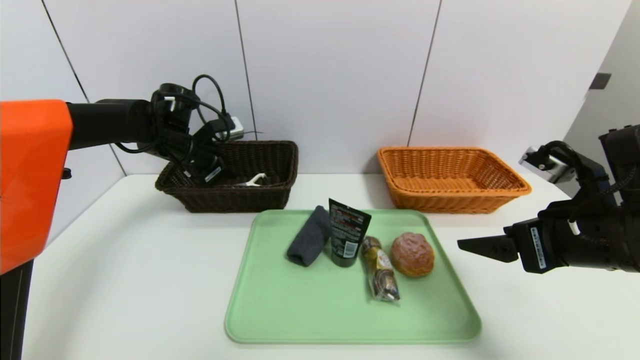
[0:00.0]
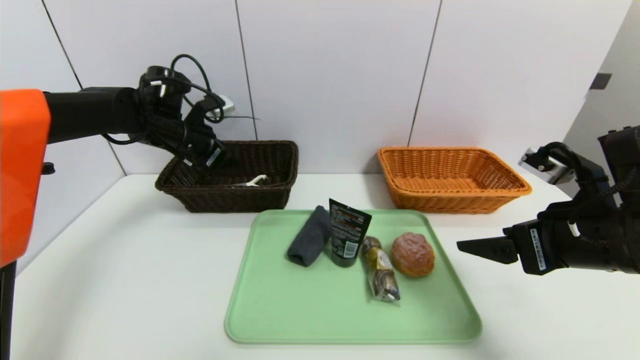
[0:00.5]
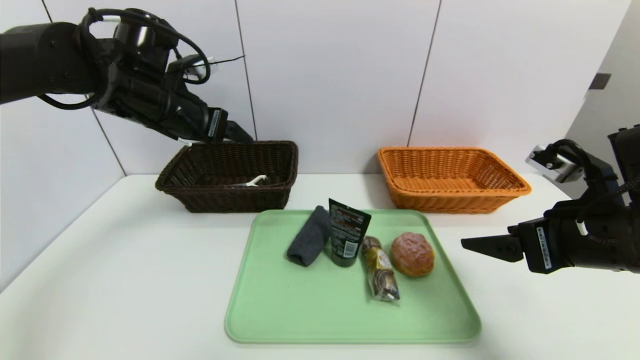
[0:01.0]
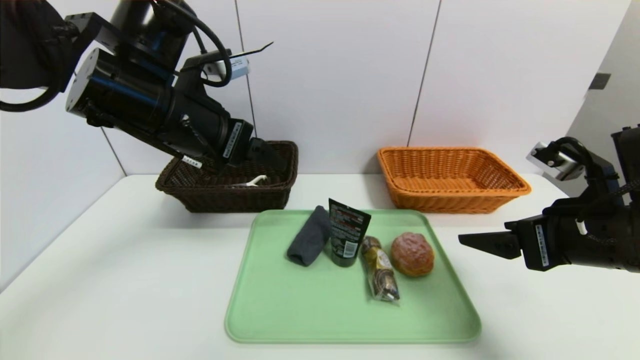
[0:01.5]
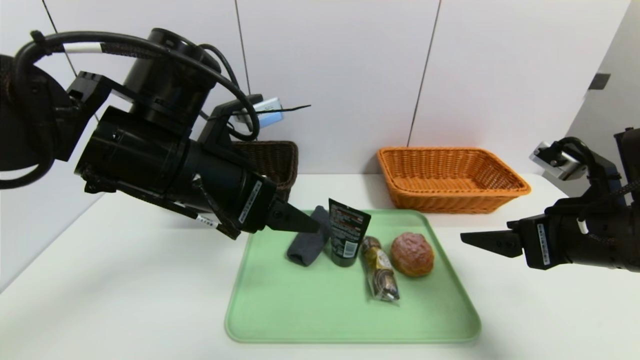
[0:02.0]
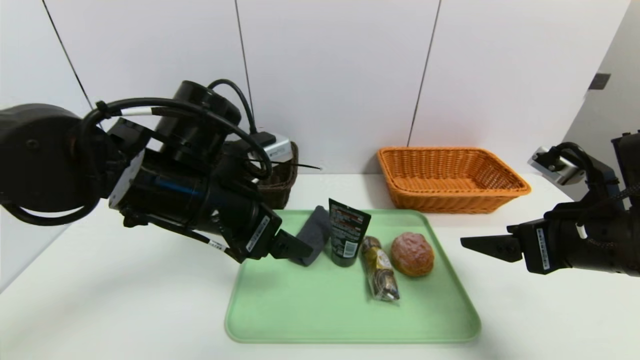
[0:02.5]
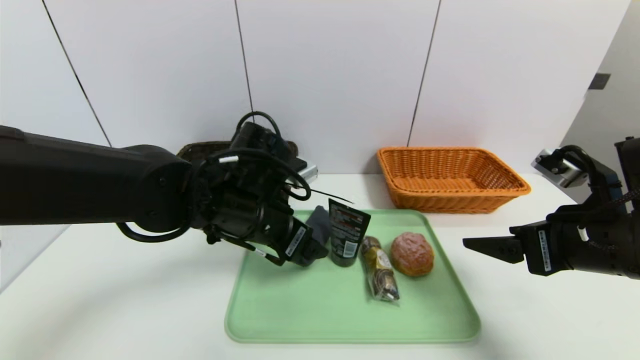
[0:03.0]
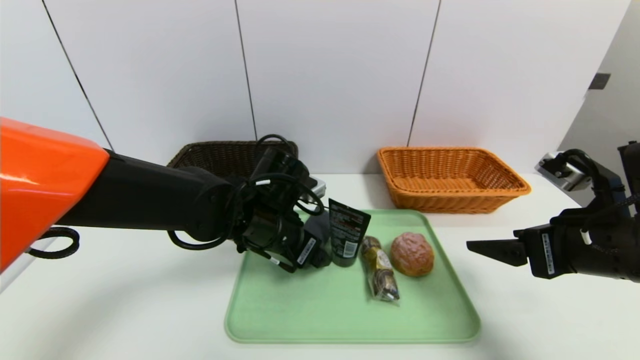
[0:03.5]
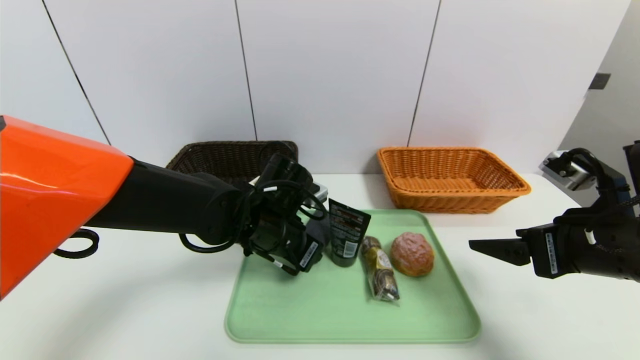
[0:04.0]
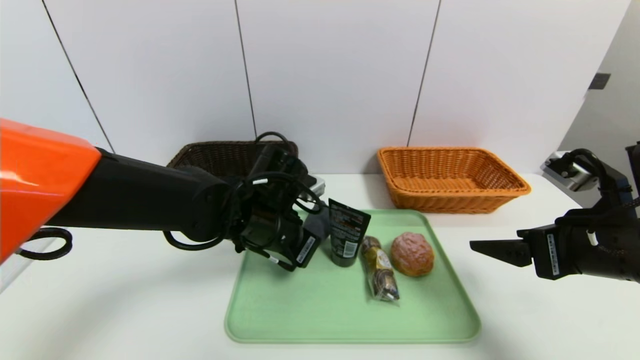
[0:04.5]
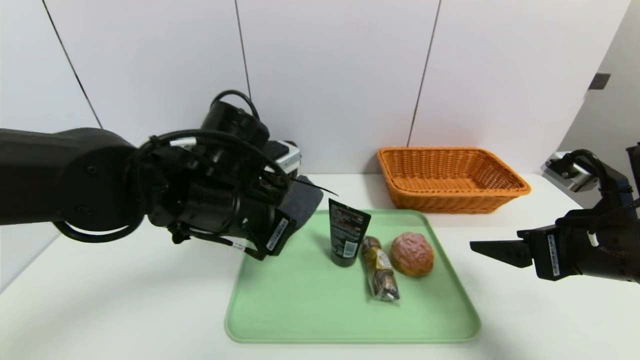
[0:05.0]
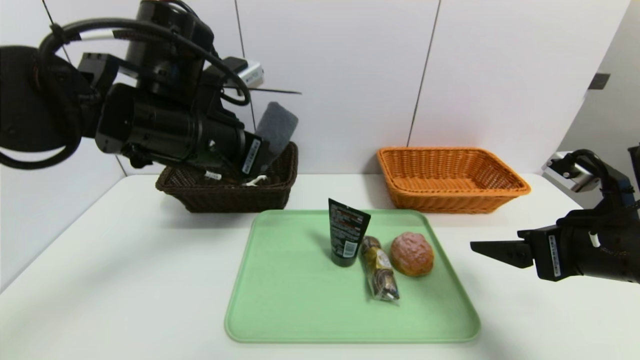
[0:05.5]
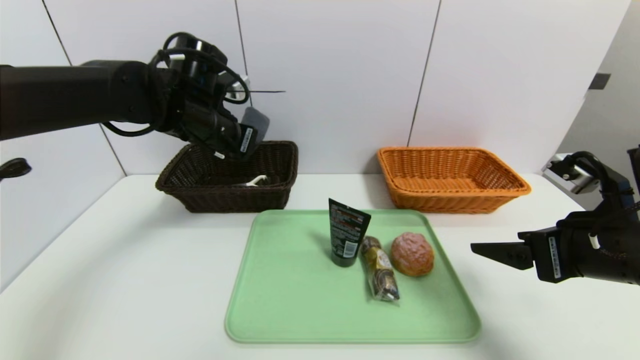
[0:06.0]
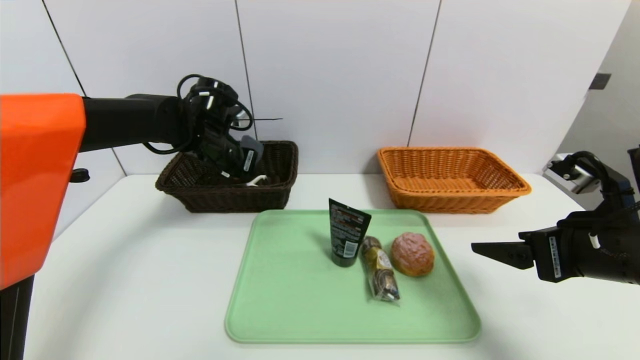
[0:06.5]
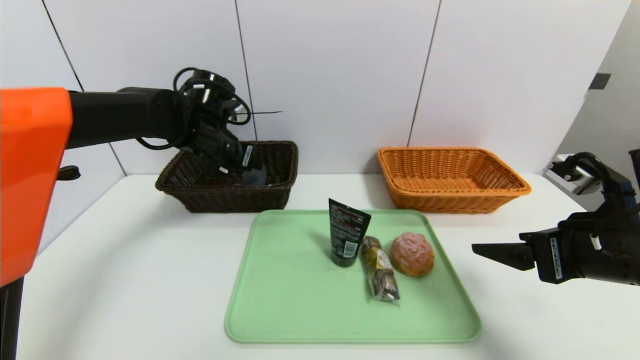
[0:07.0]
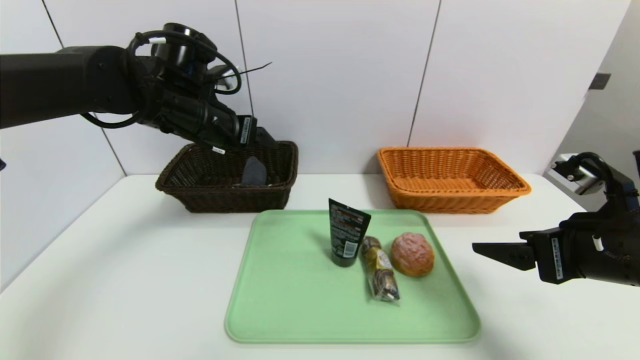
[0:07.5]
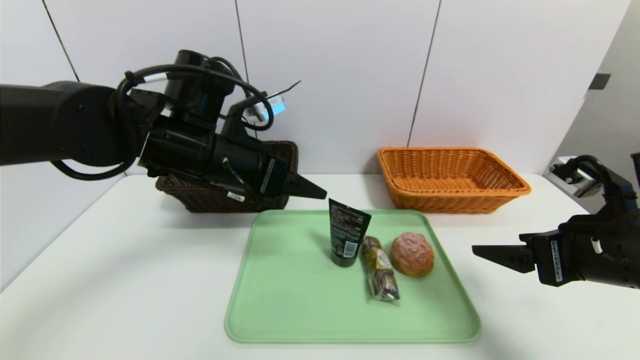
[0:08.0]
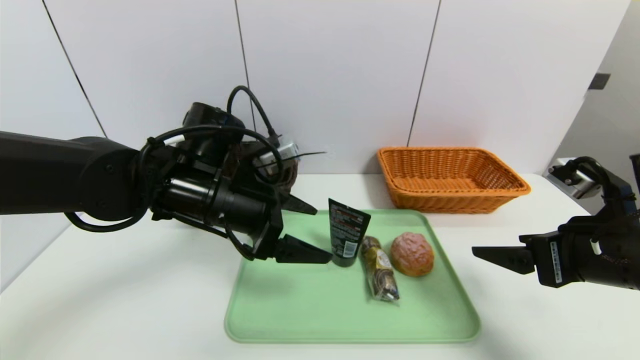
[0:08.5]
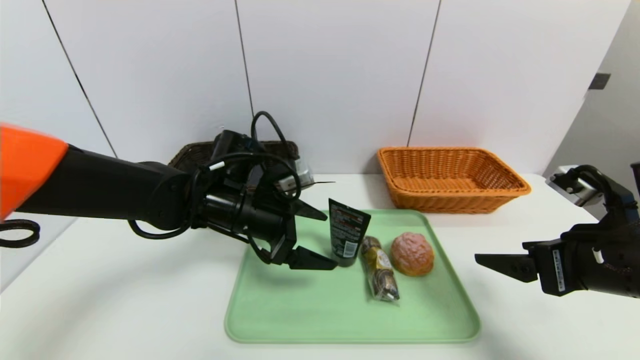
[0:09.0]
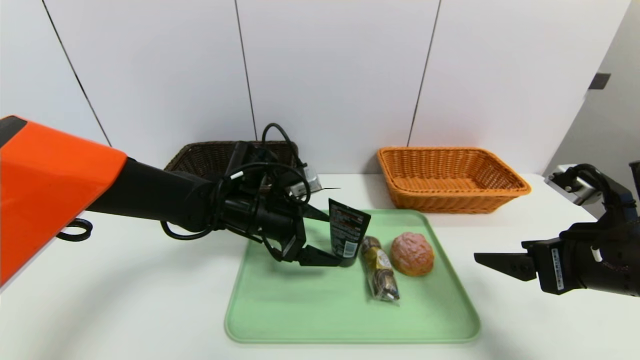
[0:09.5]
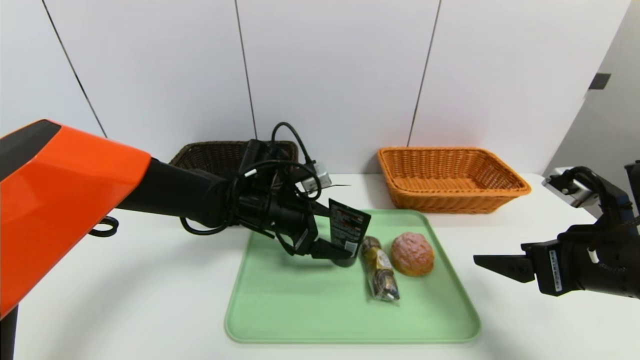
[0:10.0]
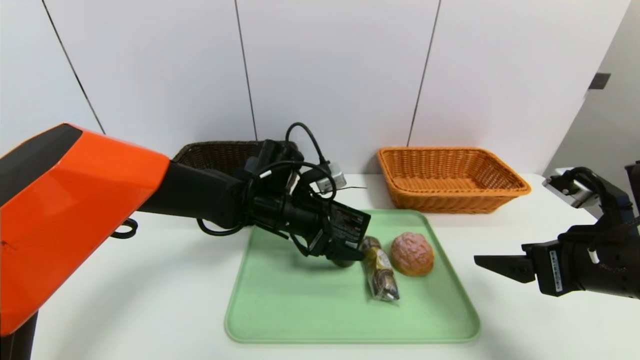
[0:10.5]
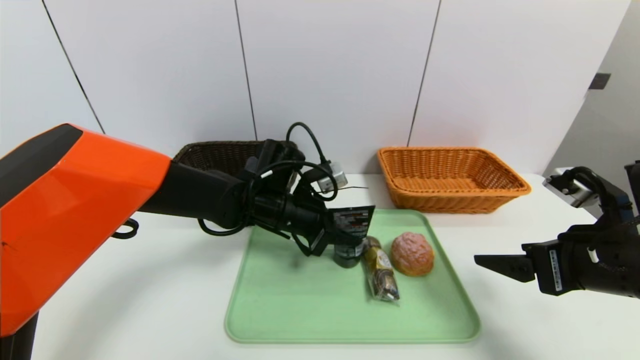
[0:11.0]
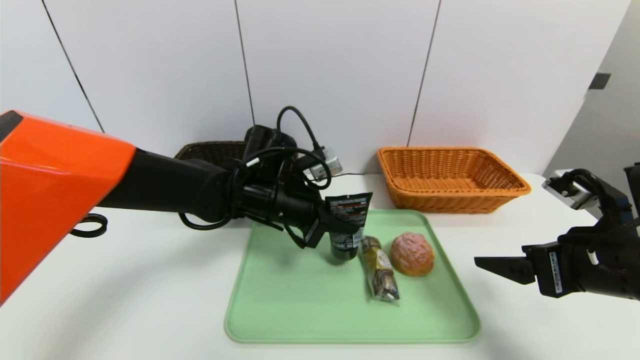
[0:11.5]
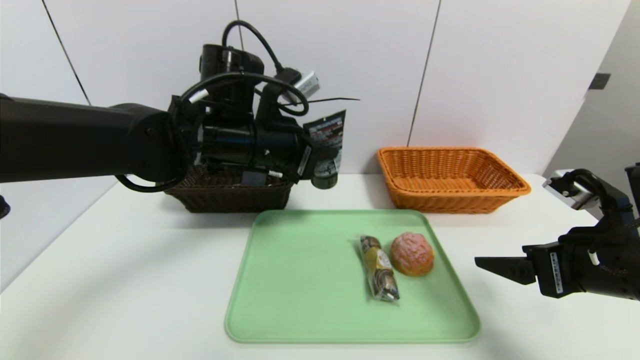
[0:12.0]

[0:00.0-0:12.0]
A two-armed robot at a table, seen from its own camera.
Task of the whole recording: place the food in the right basket with the right gripper, and place the non food items in the left basket with the left gripper.
Step, 0:01.0 to 0:07.0: Grasp the grey towel and put it in the left basket.
0:00.0 to 0:02.0: The left gripper travels backward and to the right by approximately 25 cm, and opens its fingers.
0:02.0 to 0:04.0: The left gripper is displaced downward, forward and to the right by roughly 15 cm, and closes.
0:04.0 to 0:06.0: The left gripper shifts some 20 cm upward, to the left and forward.
0:06.0 to 0:08.0: The left gripper travels backward by roughly 10 cm, and opens.
0:08.0 to 0:10.0: The left gripper travels downward and forward by roughly 15 cm.
0:10.0 to 0:12.0: The left gripper goes approximately 15 cm upward, and closes up.

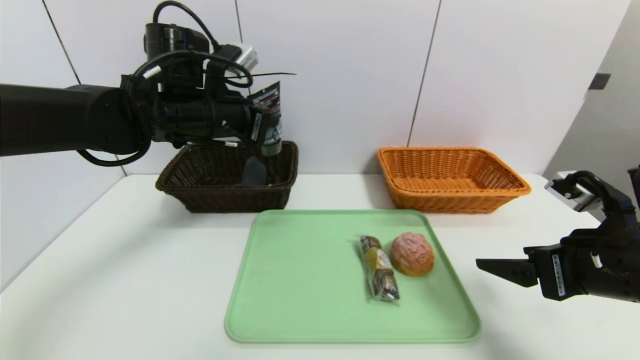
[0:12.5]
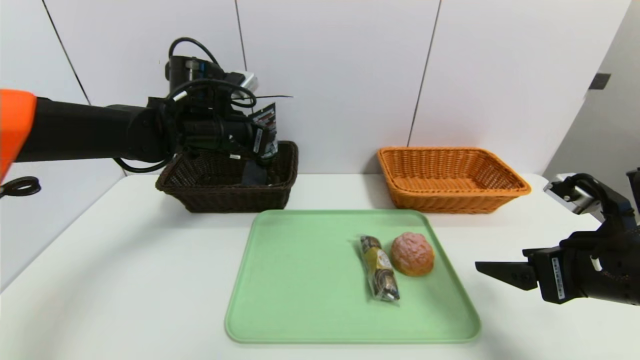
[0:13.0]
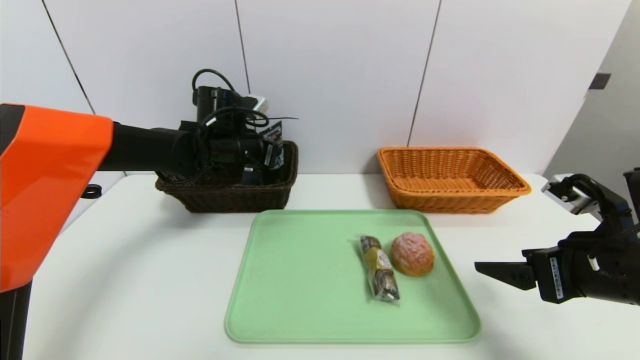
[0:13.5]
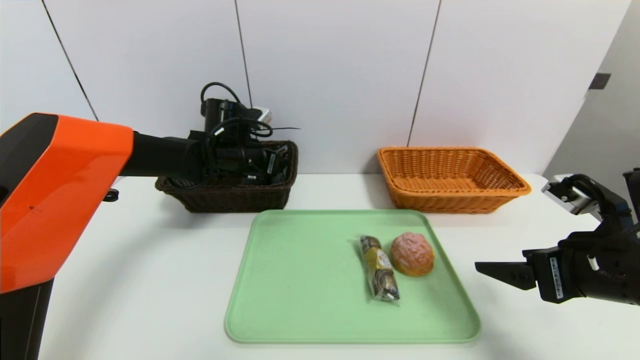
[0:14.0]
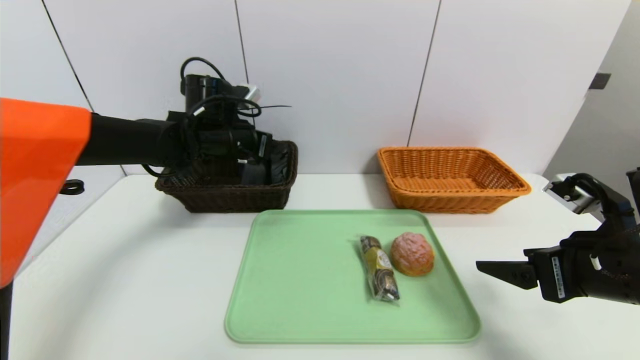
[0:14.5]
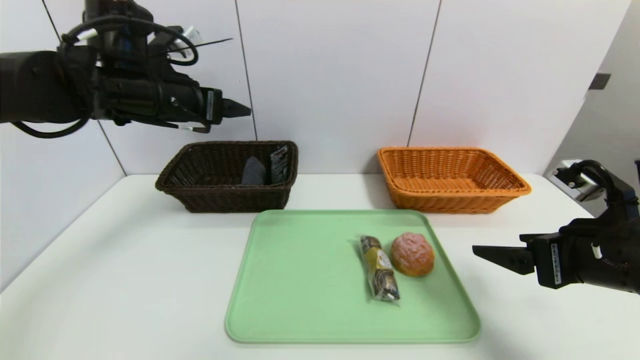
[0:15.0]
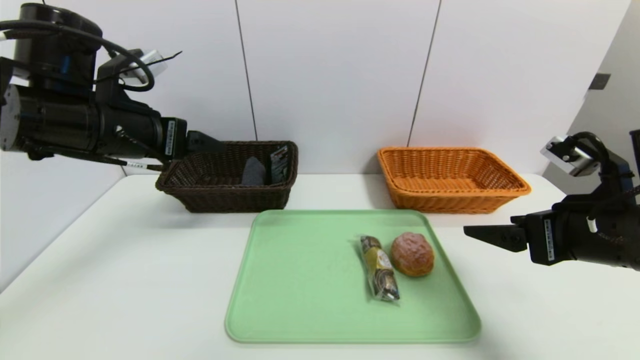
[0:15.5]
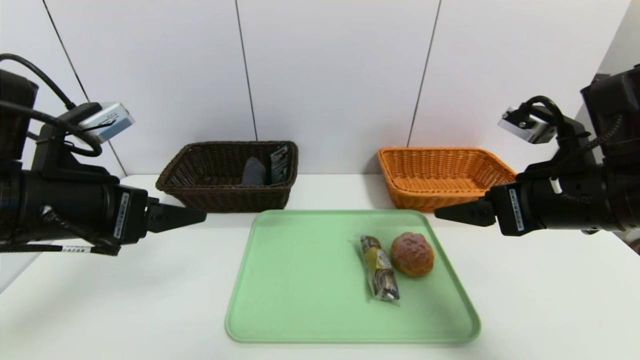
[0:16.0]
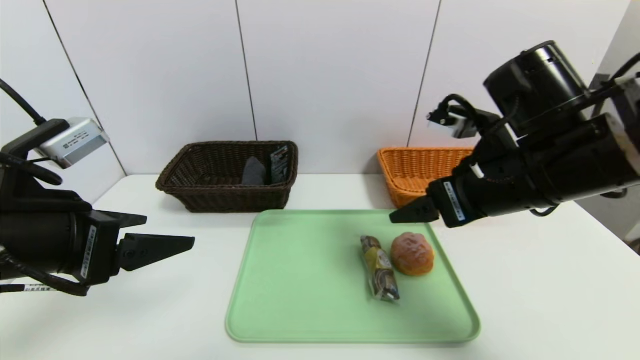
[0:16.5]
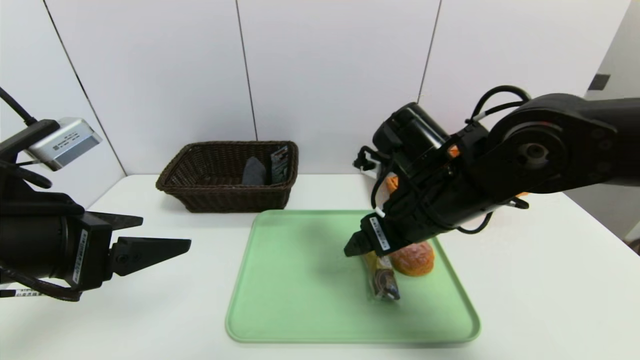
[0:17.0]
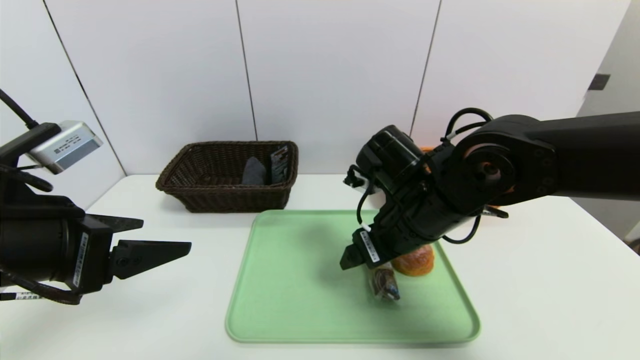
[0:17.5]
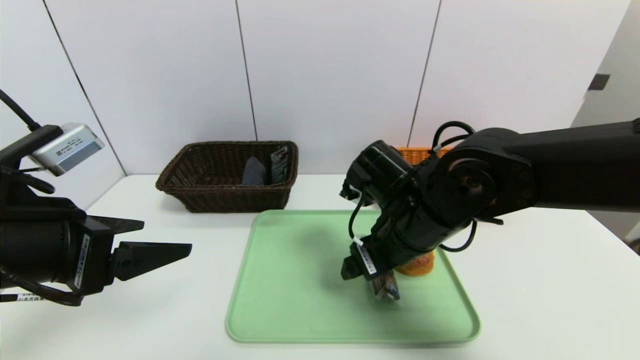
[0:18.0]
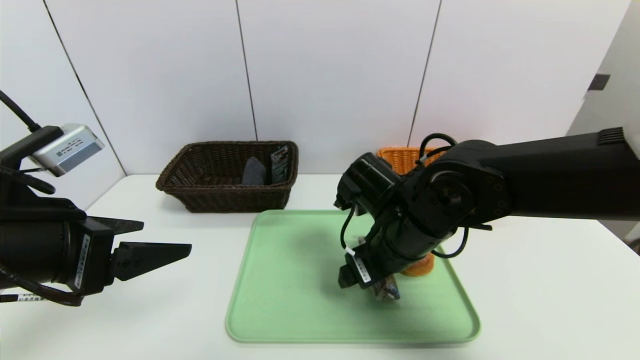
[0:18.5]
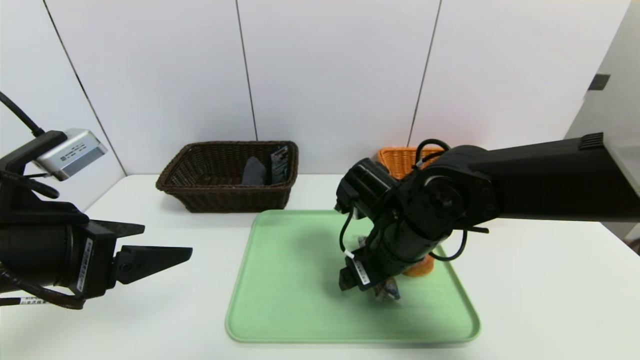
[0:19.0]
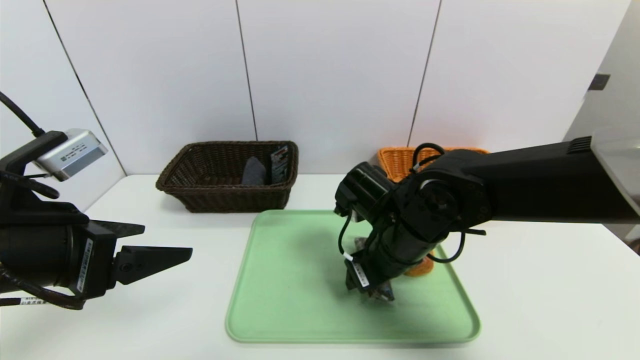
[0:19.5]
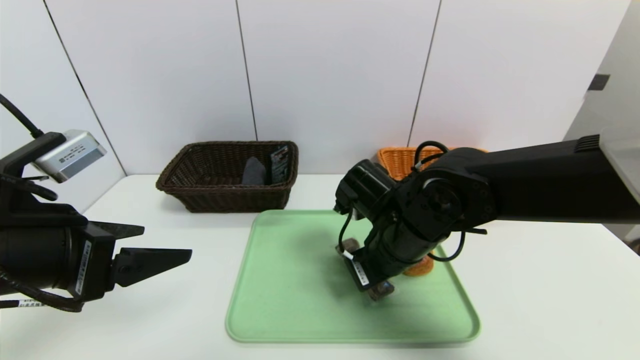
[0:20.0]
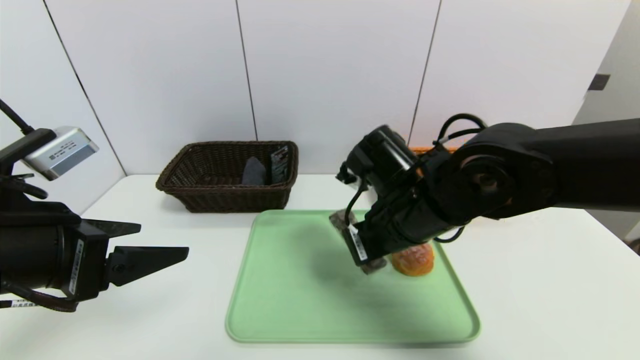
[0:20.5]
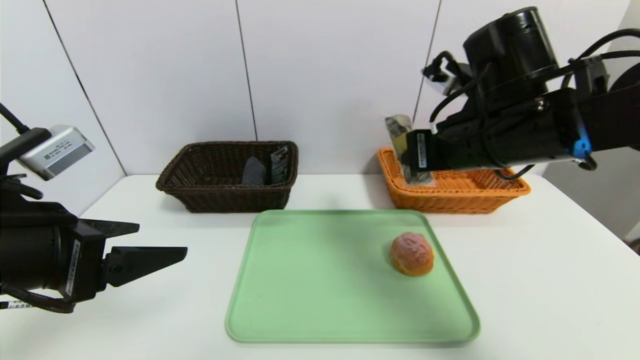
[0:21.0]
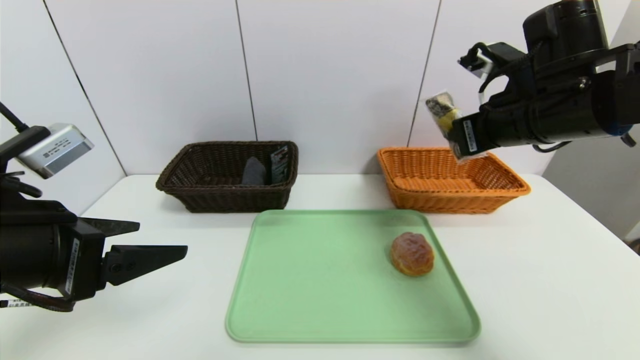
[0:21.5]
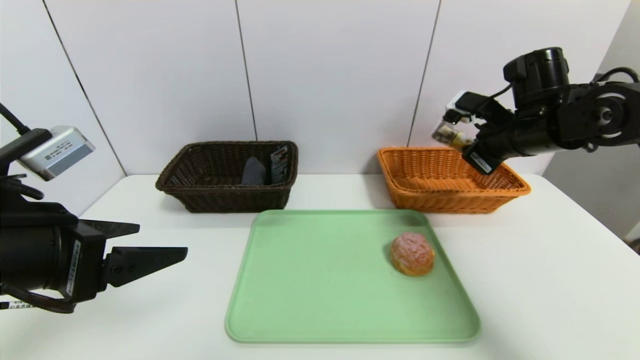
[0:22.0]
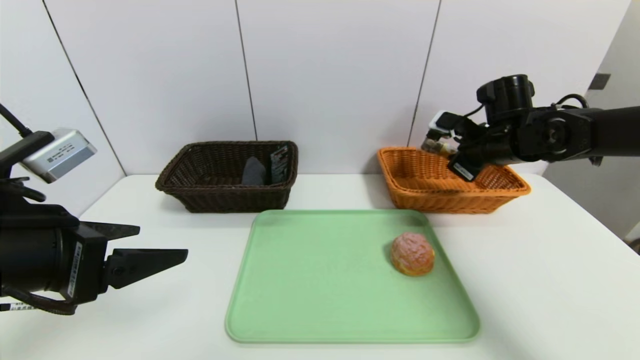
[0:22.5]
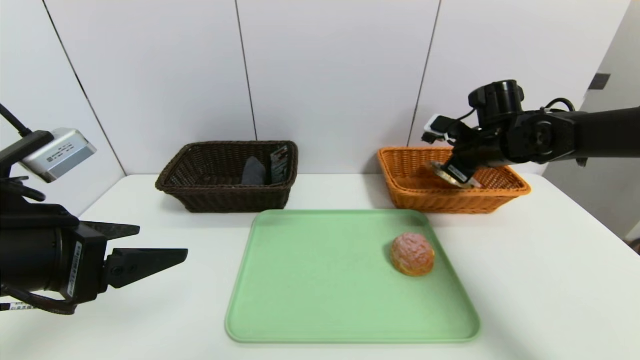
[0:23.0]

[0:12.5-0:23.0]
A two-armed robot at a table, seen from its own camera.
Task of the whole recording: place the food in the right basket with the right gripper, and place the non food items in the left basket with the left gripper.
Step, 0:12.5 to 0:14.5: Grasp the soft cleanser and put it in the left basket.
0:12.5 to 0:14.5: The left gripper heads forward and downward, covering some 10 cm, and opens its fingers.
0:14.5 to 0:16.5: The left gripper heads backward, covering approximately 25 cm; the right gripper is displaced to the left, upward and forward by some 15 cm.
0:16.5 to 0:19.0: The right gripper goes about 15 cm downward and to the left.
0:19.0 to 0:21.0: The right gripper shifts roughly 15 cm upward and to the right, and closes up.
0:21.0 to 0:23.0: The right gripper shifts some 20 cm forward, to the right and downward, and opens up.
